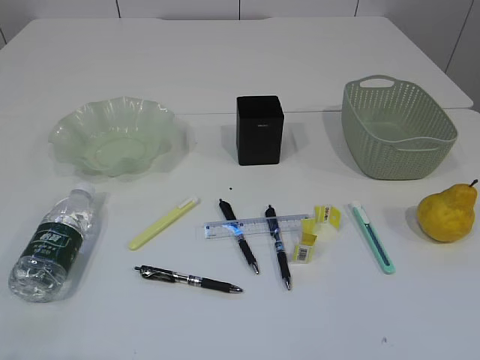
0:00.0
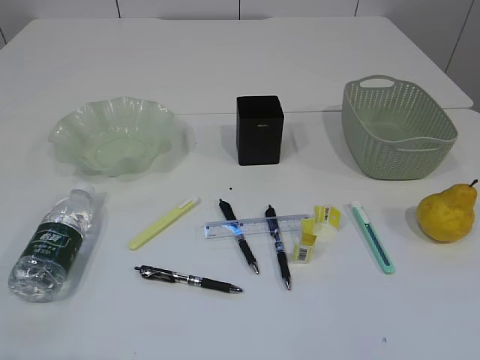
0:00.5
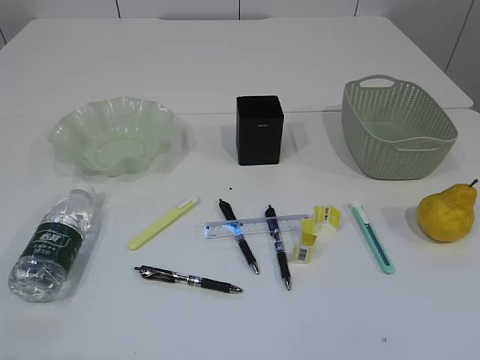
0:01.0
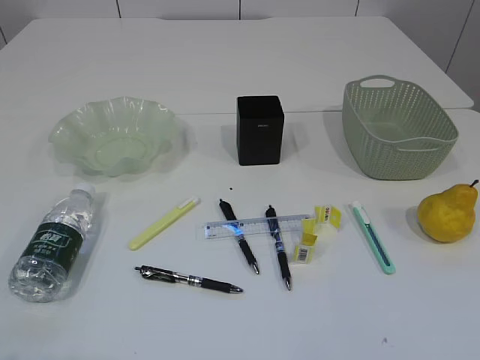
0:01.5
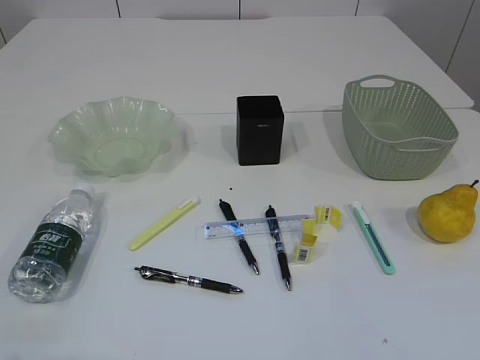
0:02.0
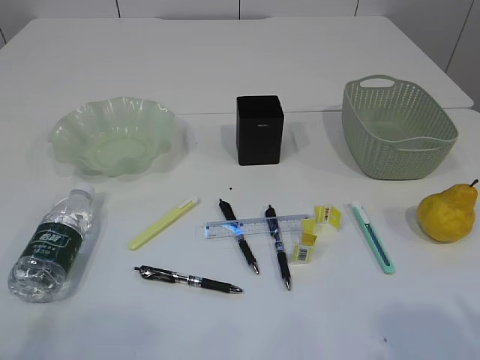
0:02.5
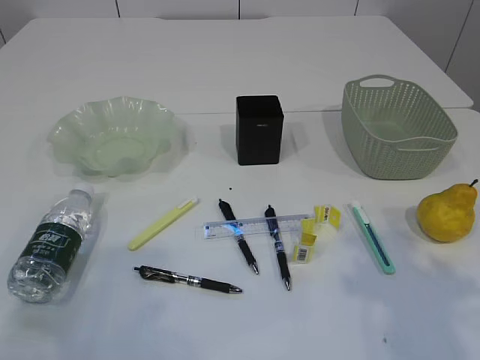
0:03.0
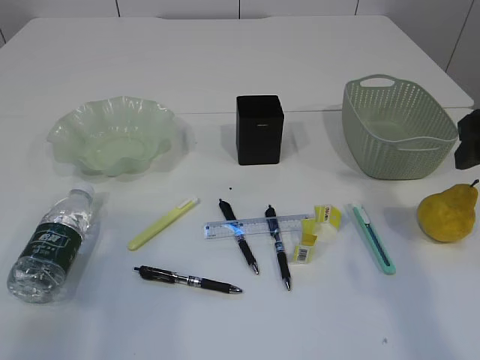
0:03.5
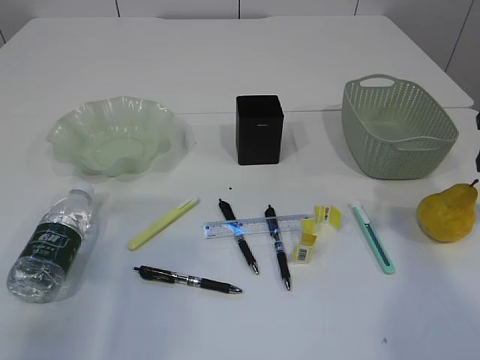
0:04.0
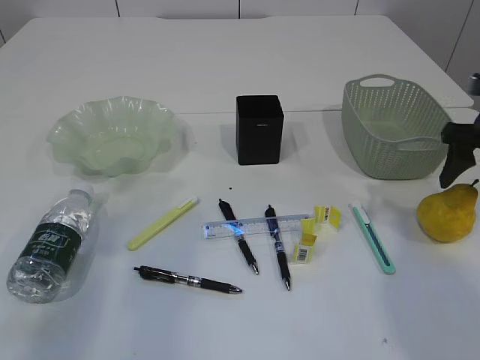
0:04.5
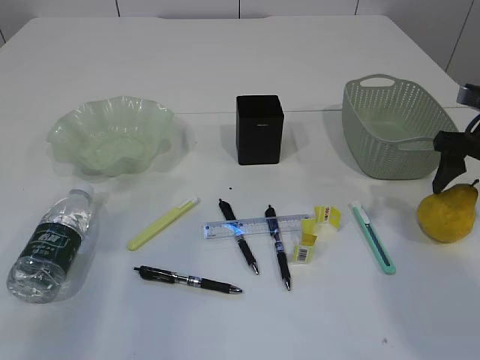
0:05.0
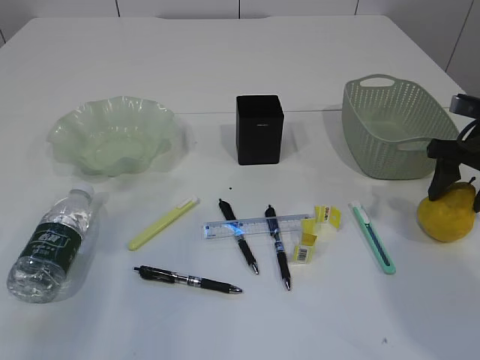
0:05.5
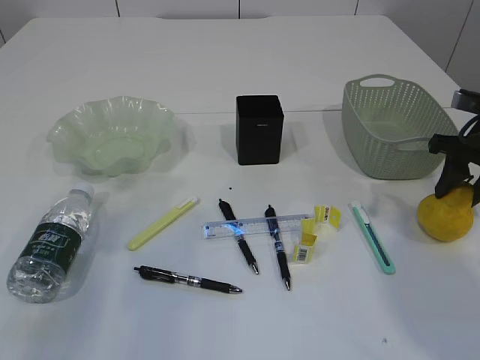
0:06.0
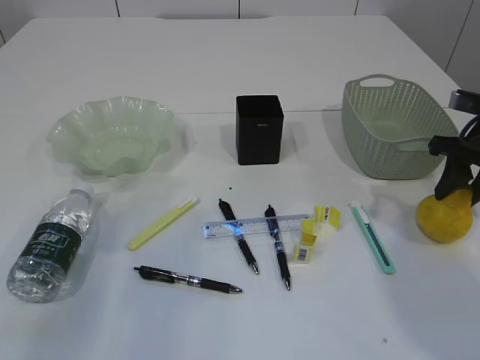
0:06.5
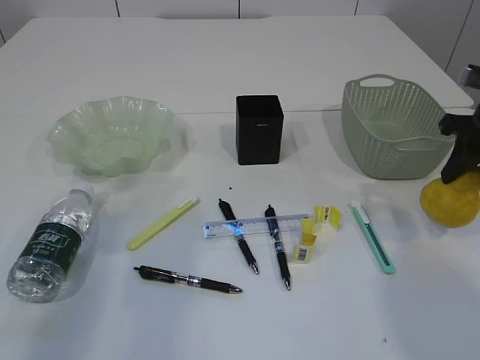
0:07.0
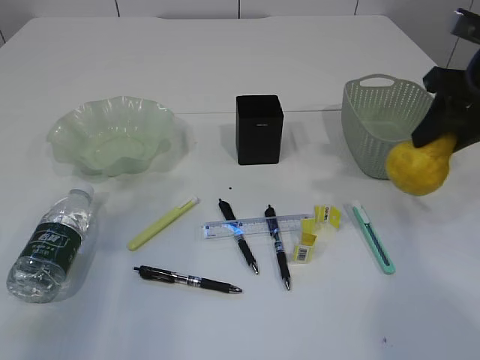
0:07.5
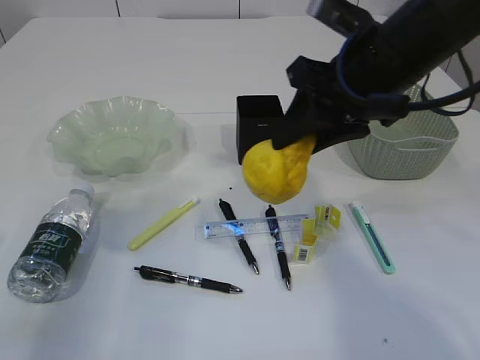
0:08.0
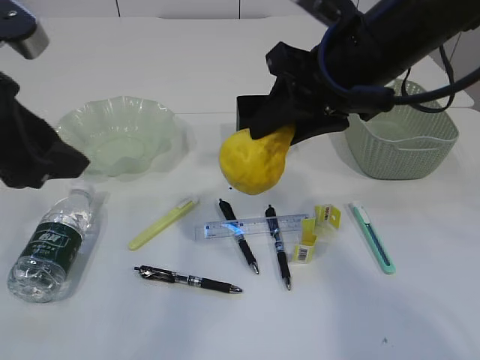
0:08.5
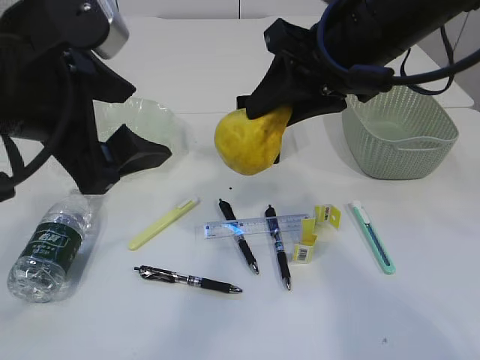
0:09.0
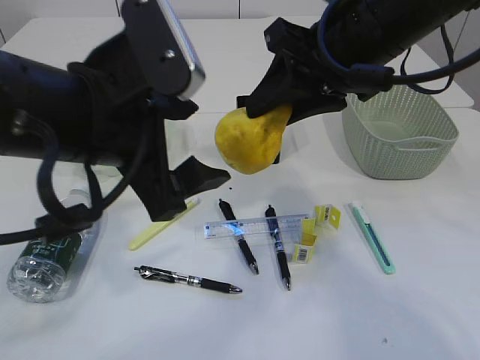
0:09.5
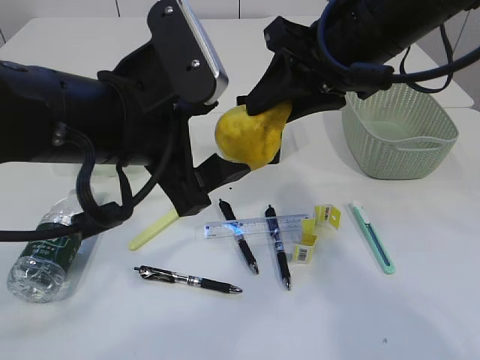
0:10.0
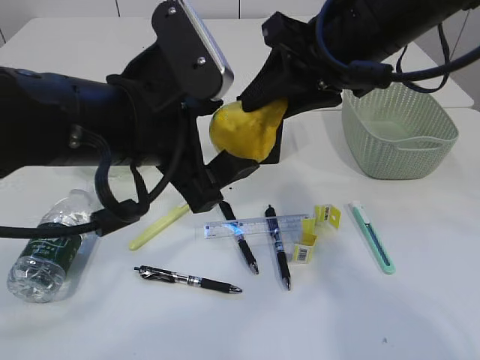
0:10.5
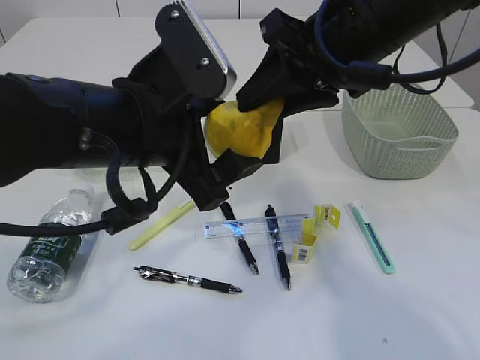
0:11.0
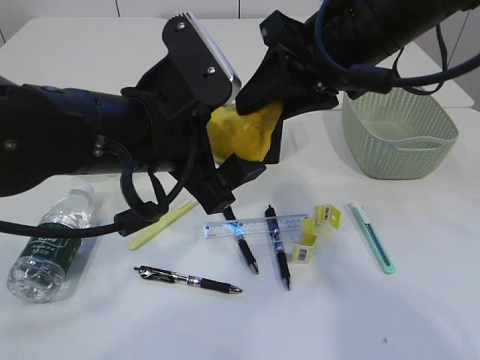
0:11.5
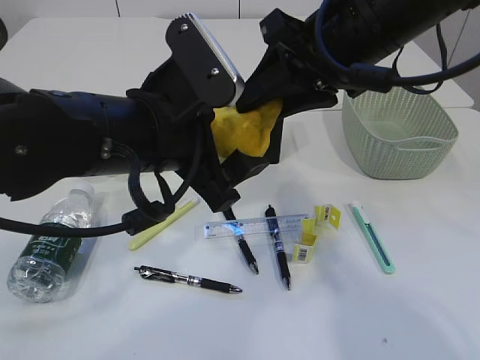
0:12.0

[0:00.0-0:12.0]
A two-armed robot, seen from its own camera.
0:02.0 to 0:04.0: The right gripper heads forward, covering roughly 35 cm; the left gripper shifts approximately 20 cm forward.
0:04.0 to 0:06.0: The right gripper travels downward by approximately 5 cm, and closes.
0:06.0 to 0:08.0: The right gripper goes roughly 25 cm to the left and upward.
0:08.0 to 0:10.0: The left gripper is displaced to the right by some 20 cm, and opens up.
0:10.0 to 0:12.0: The grippers make only small movements.

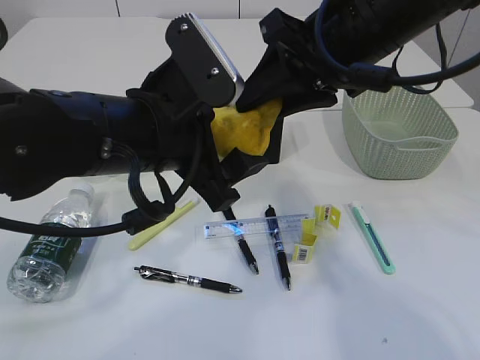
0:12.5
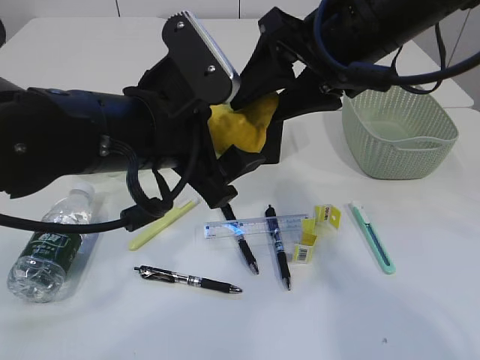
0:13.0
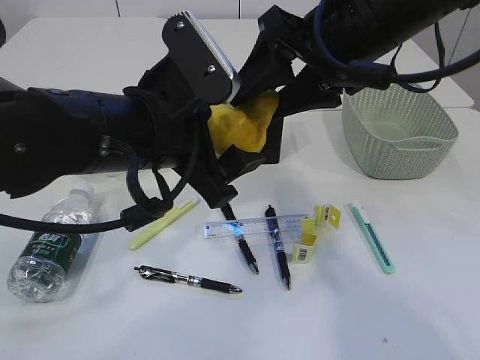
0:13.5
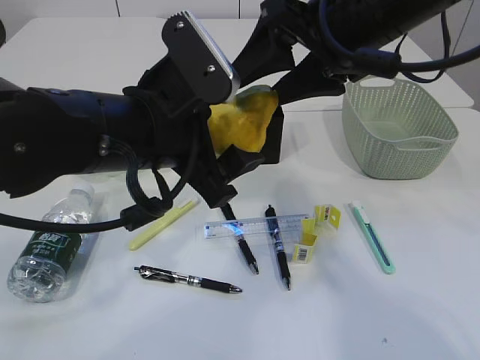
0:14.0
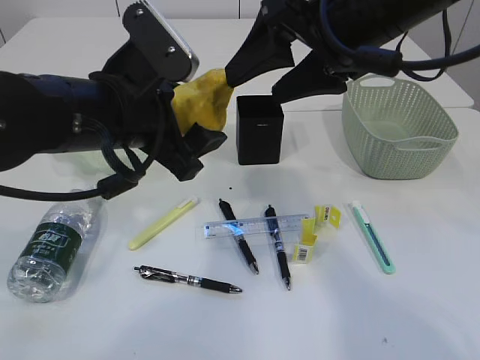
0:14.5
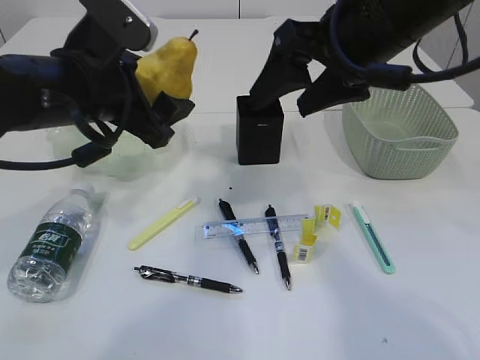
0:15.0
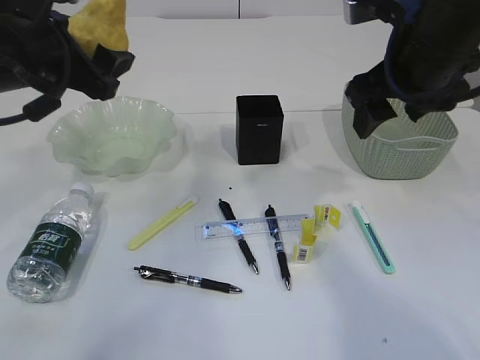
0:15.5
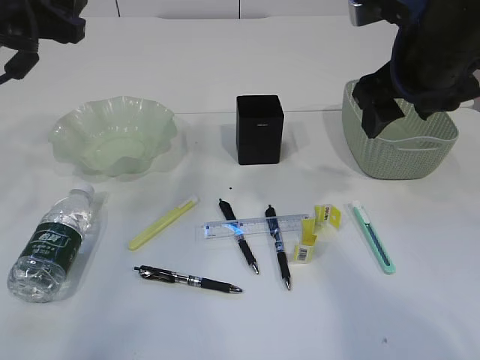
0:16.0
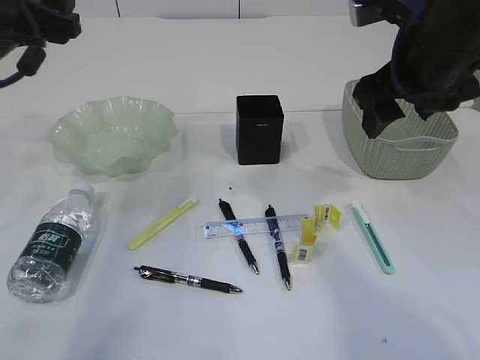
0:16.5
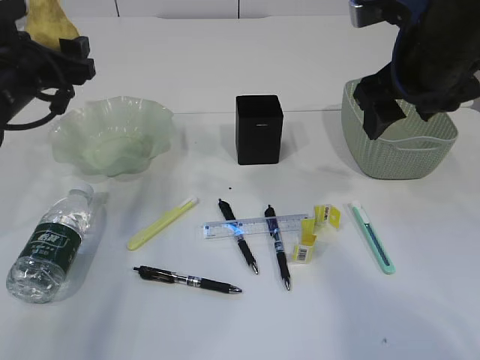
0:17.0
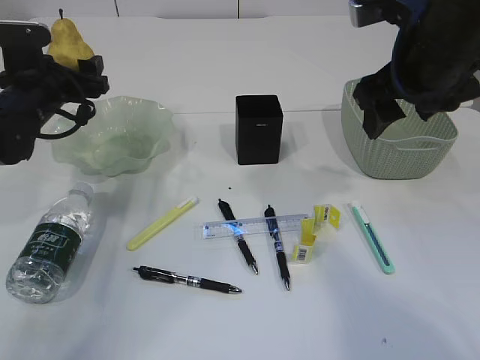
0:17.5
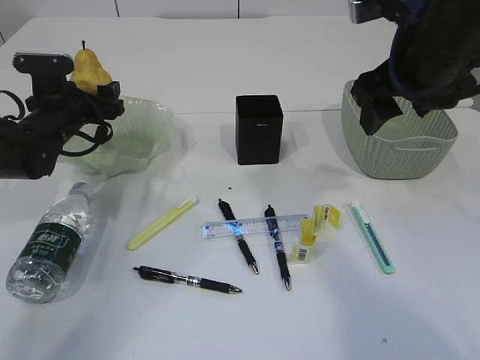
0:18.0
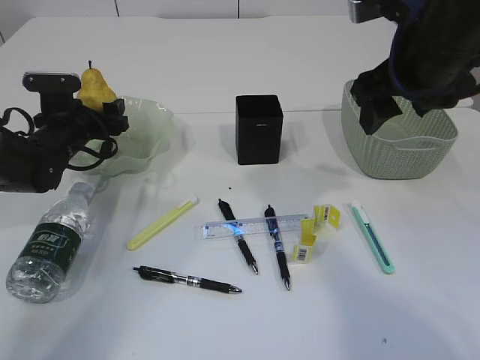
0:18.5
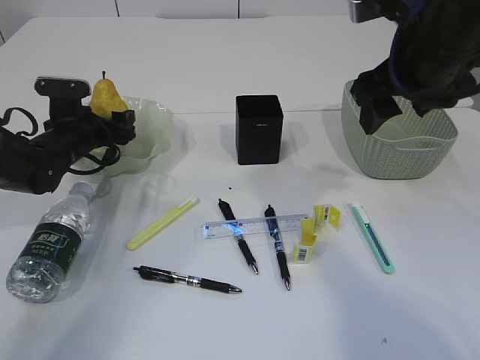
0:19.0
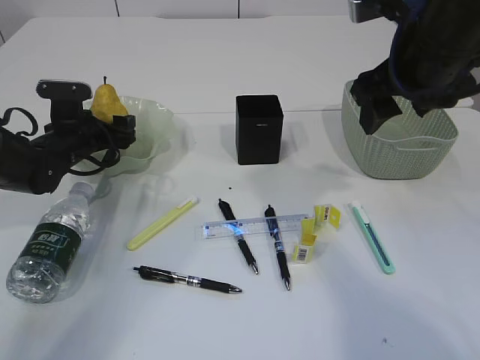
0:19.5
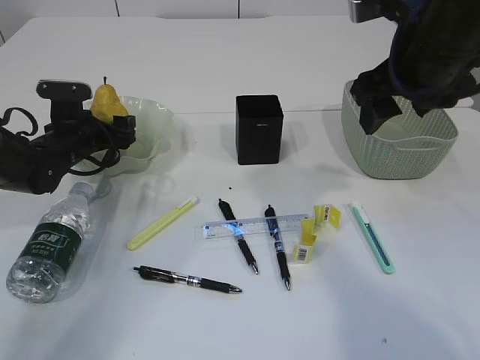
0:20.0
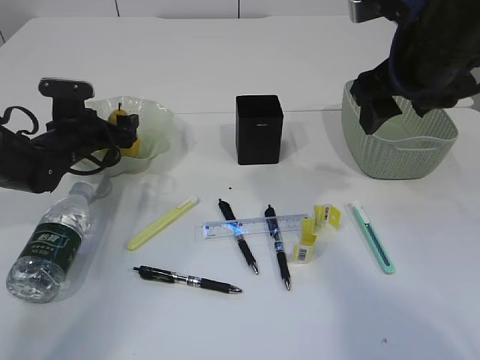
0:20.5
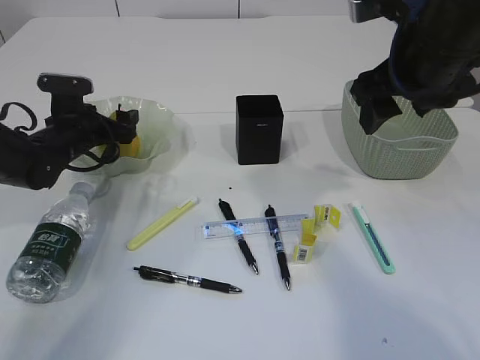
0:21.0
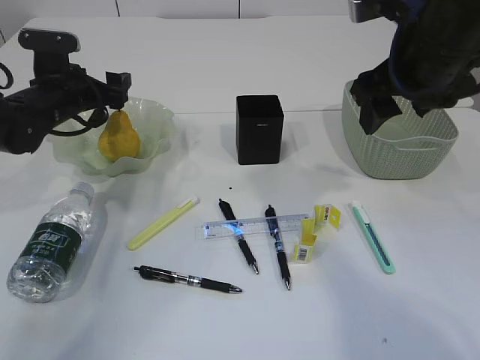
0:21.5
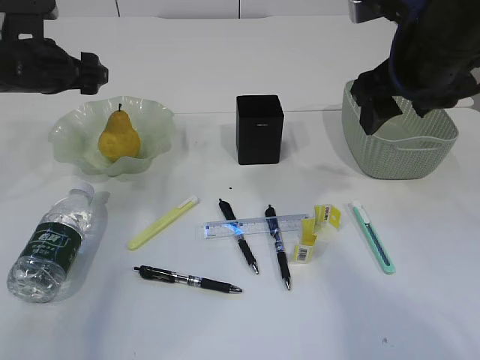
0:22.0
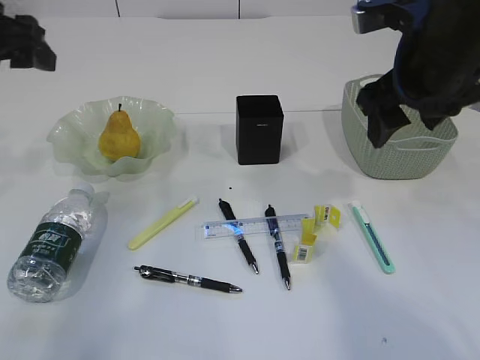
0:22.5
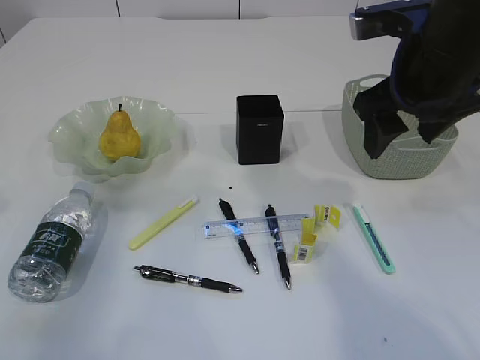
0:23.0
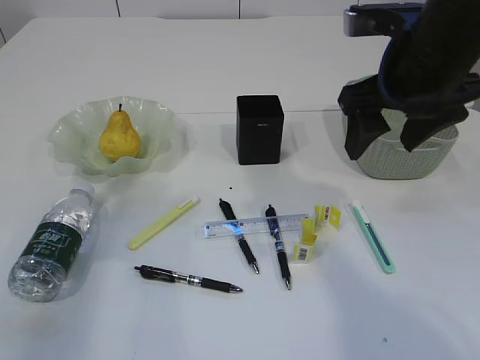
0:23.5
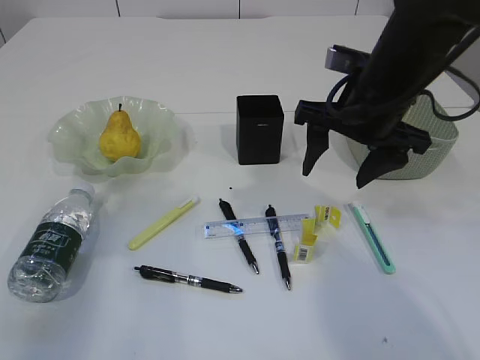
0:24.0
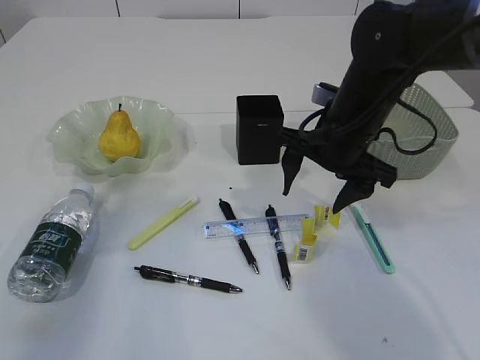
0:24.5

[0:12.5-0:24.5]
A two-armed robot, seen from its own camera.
Step, 0:14.5 to 0:21.0: Place the pear in the plate.
0:12.5 to 0:14.5: The right gripper opens.
0:14.5 to 0:16.5: The left gripper heads to the left and forward, covering about 15 cm. The right gripper shifts approximately 5 cm to the right.
0:16.5 to 0:18.5: The left gripper shifts about 20 cm downward and forward.
0:18.5 to 0:20.5: The grippers make only small movements.
0:20.5 to 0:22.5: The left gripper is displaced upward and backward by about 25 cm.
0:22.5 to 0:24.5: The left gripper goes approximately 10 cm backward. Meanwhile the right gripper shifts roughly 10 cm downward and to the left.

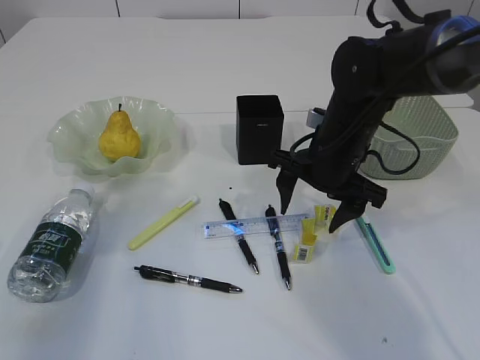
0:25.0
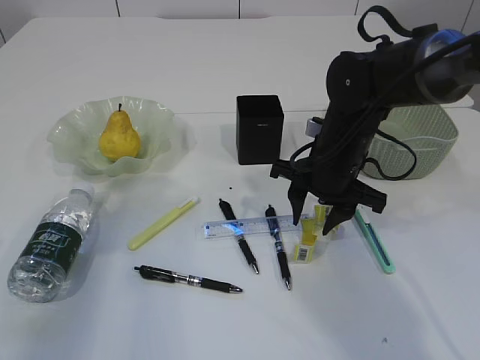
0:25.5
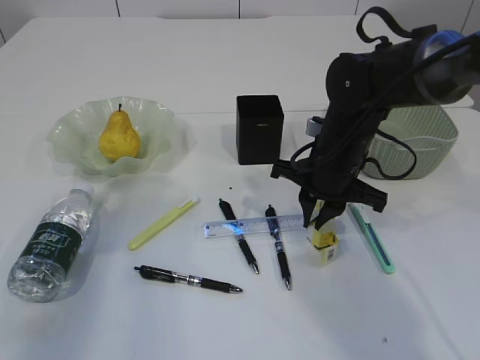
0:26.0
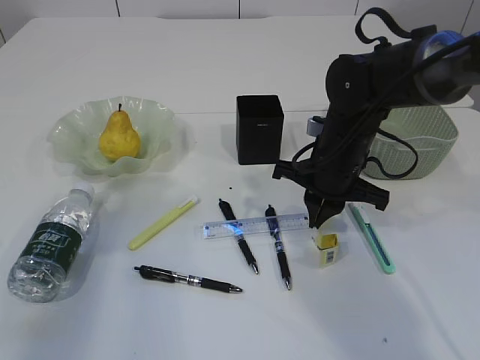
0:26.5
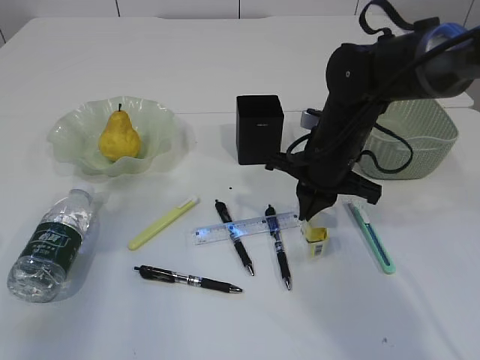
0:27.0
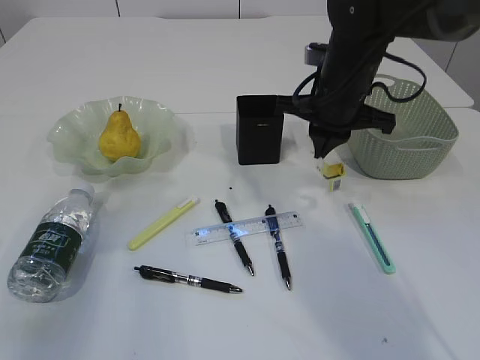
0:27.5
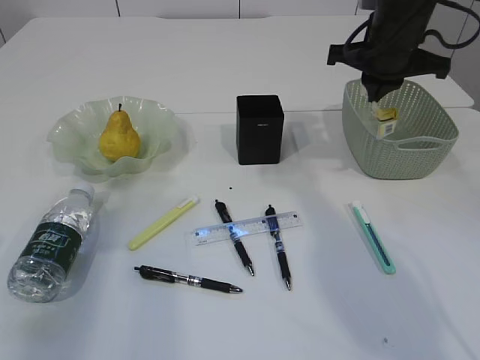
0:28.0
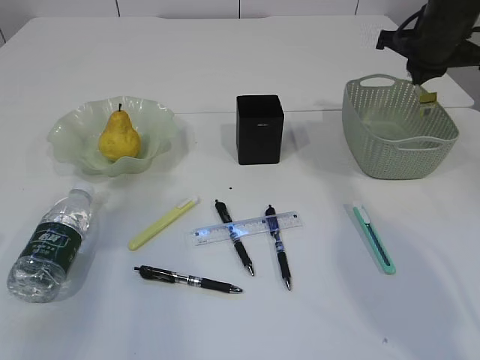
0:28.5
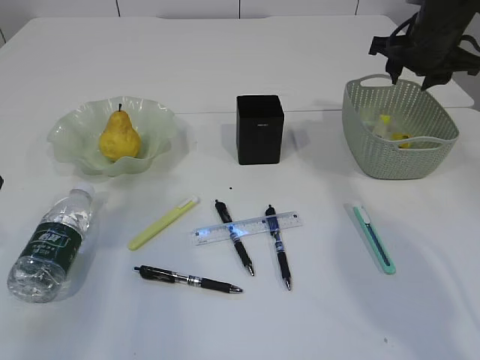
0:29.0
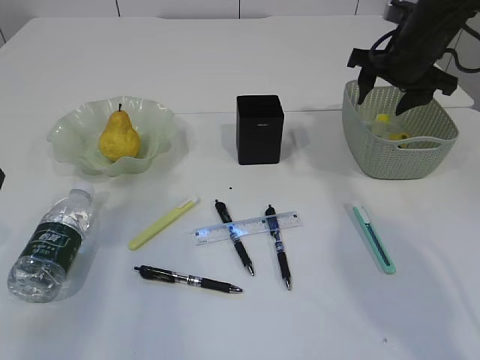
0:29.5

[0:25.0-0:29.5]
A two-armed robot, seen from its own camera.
Step, 0:25.0 to 0:27.0: Pick up the waste paper.
0:25.0 to 0:27.0: The right gripper closes up.
0:27.0 to 0:29.5: The right gripper travels to the right, forward and upward by approximately 15 cm, and opens.
